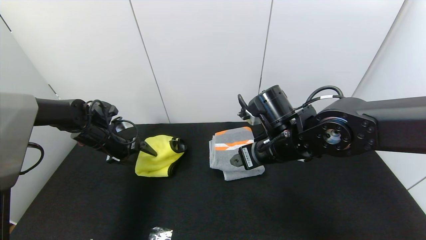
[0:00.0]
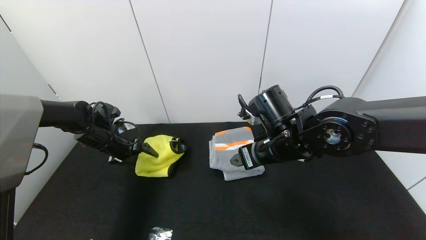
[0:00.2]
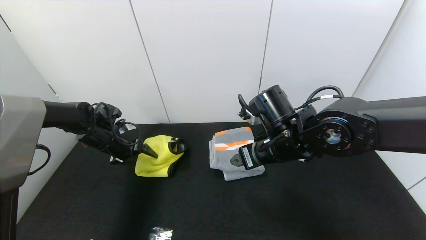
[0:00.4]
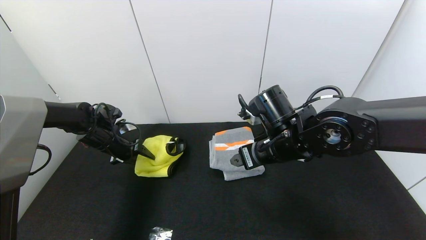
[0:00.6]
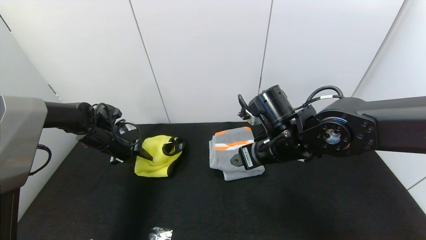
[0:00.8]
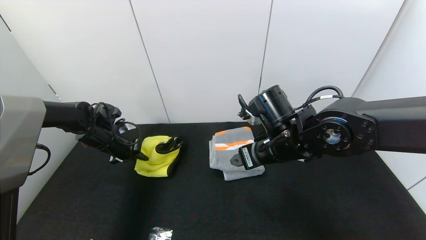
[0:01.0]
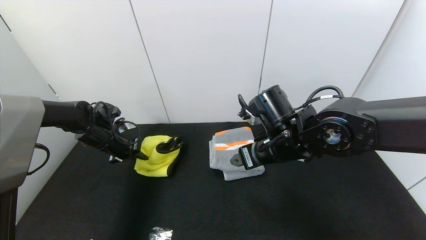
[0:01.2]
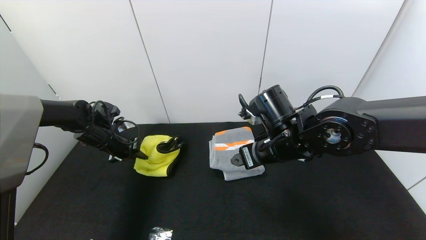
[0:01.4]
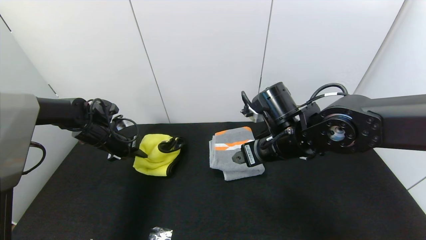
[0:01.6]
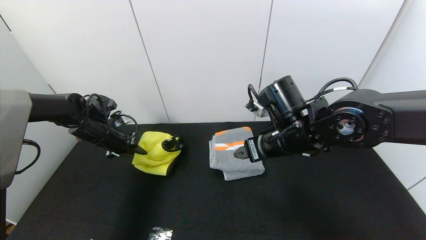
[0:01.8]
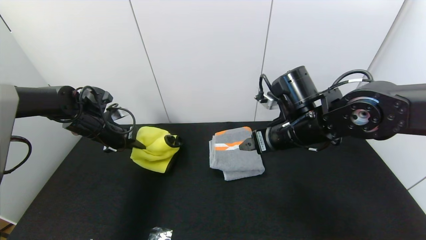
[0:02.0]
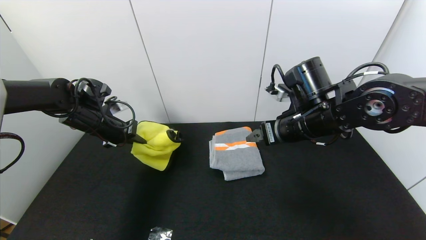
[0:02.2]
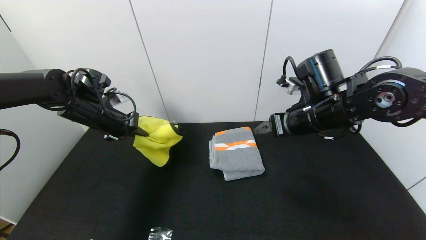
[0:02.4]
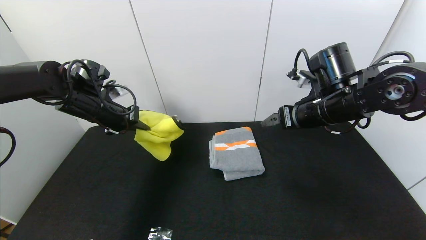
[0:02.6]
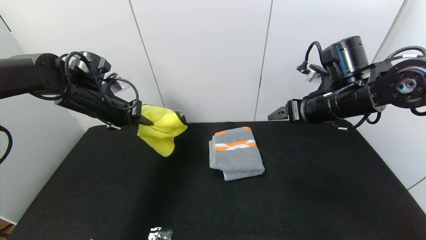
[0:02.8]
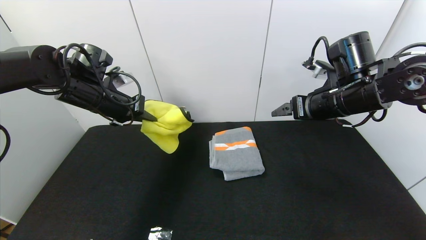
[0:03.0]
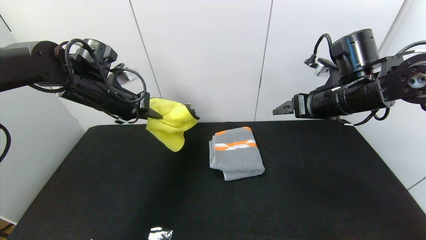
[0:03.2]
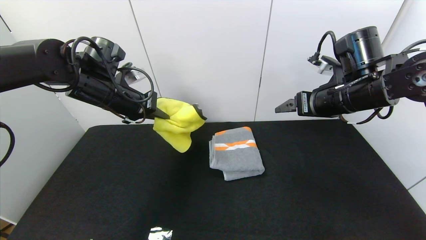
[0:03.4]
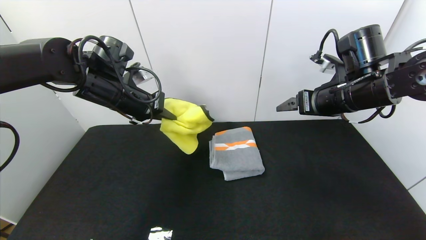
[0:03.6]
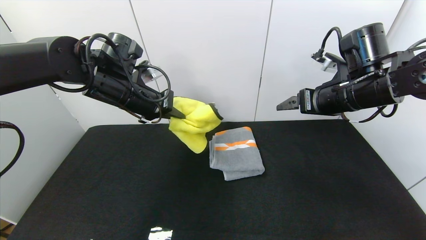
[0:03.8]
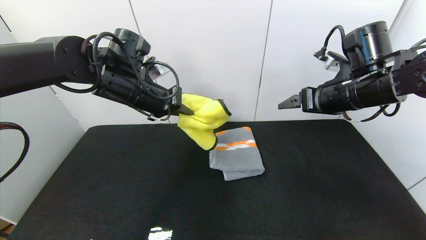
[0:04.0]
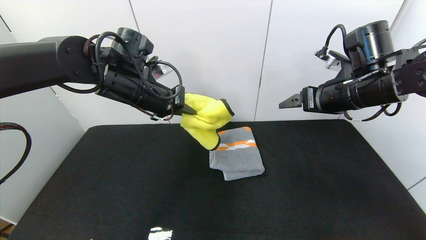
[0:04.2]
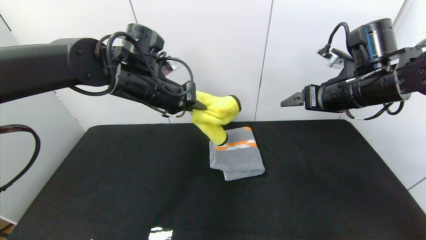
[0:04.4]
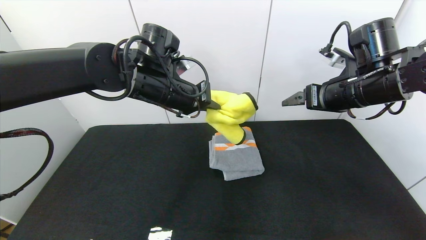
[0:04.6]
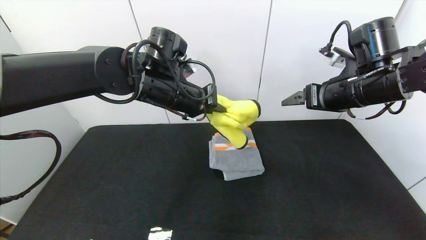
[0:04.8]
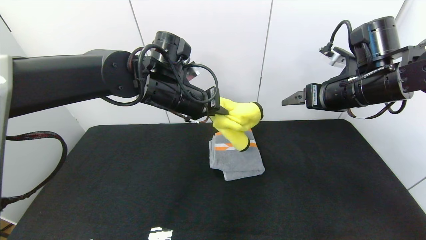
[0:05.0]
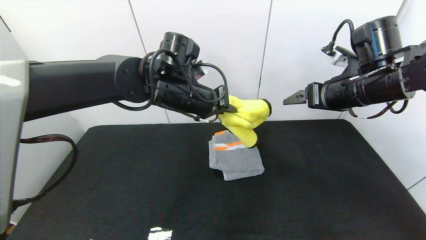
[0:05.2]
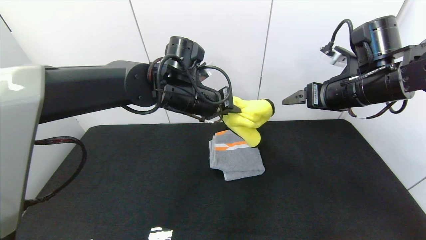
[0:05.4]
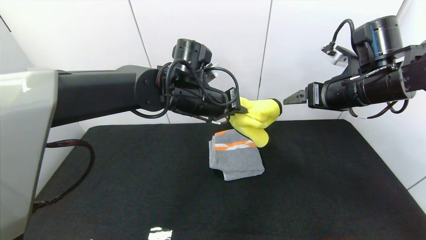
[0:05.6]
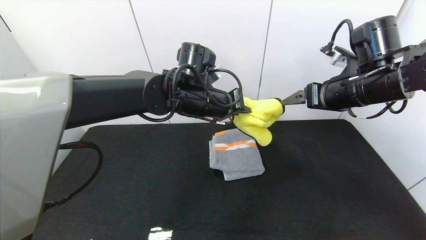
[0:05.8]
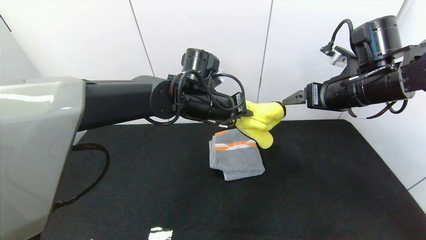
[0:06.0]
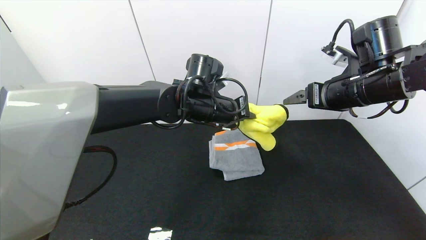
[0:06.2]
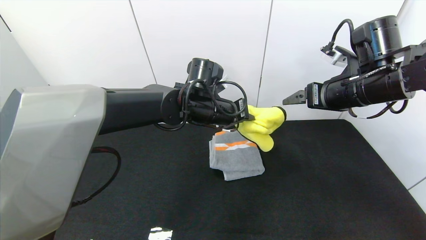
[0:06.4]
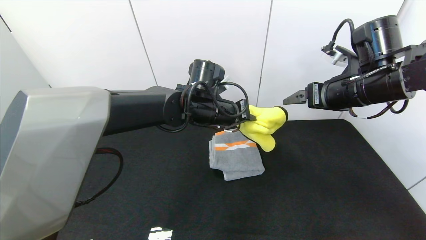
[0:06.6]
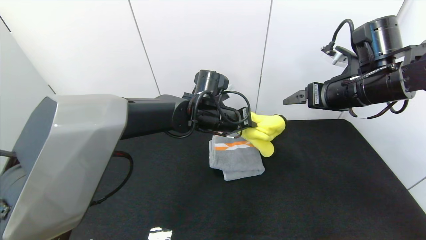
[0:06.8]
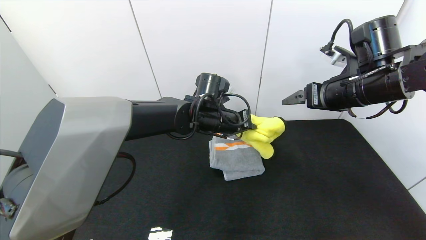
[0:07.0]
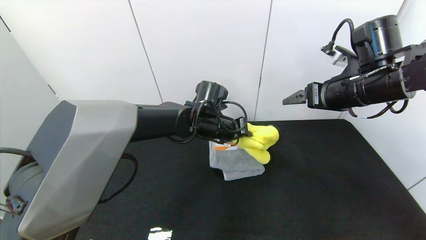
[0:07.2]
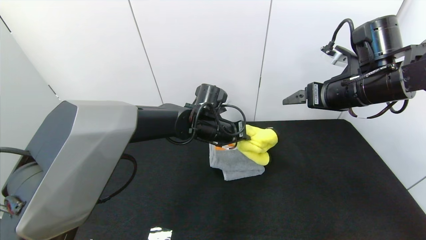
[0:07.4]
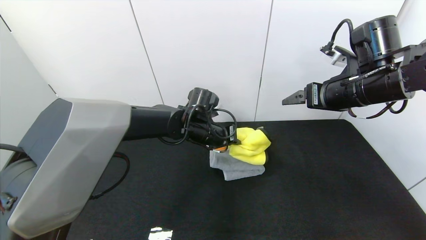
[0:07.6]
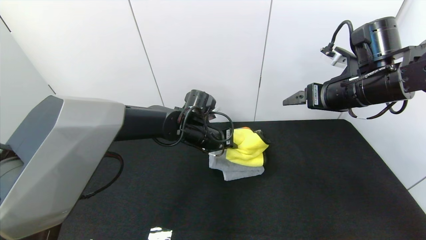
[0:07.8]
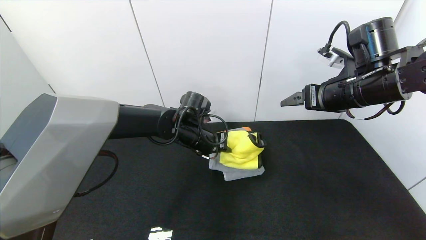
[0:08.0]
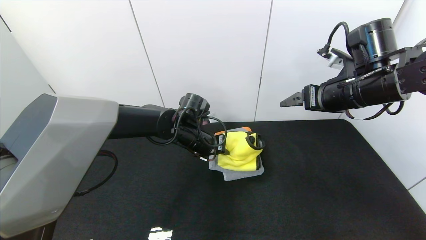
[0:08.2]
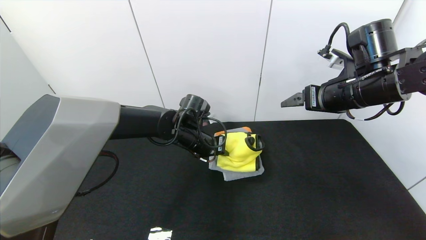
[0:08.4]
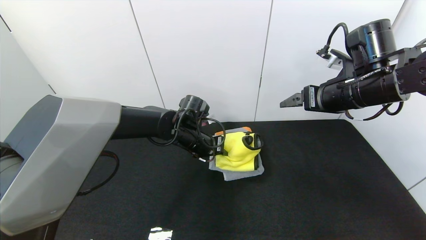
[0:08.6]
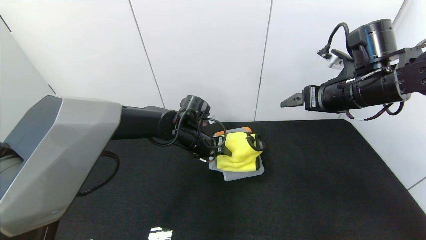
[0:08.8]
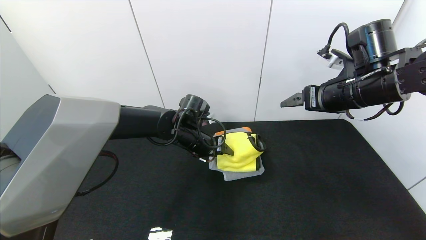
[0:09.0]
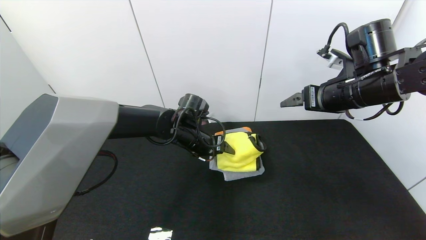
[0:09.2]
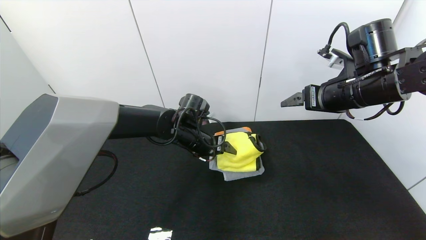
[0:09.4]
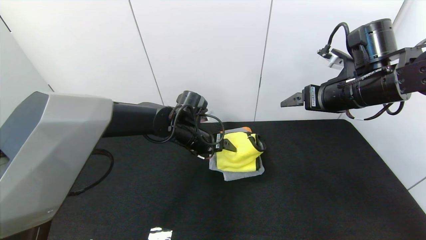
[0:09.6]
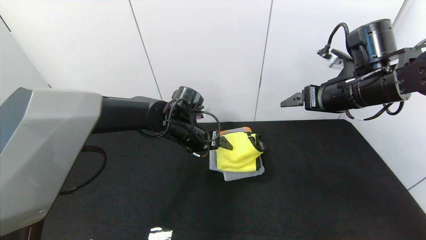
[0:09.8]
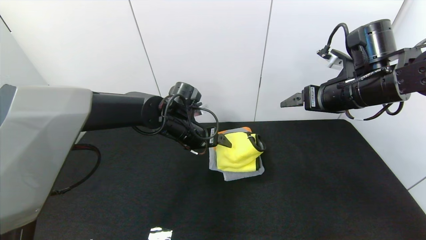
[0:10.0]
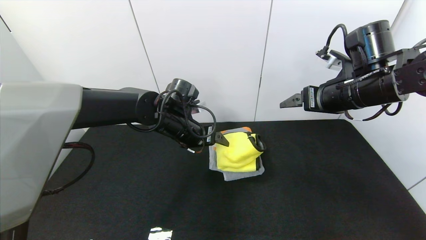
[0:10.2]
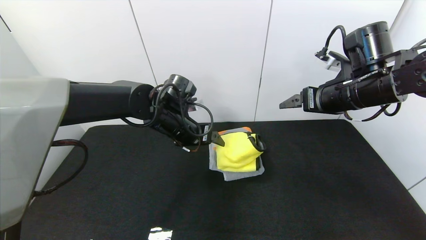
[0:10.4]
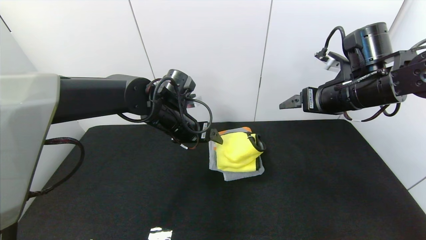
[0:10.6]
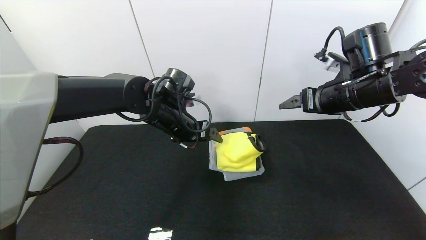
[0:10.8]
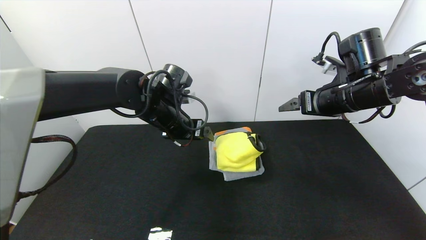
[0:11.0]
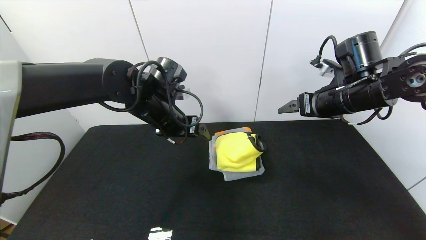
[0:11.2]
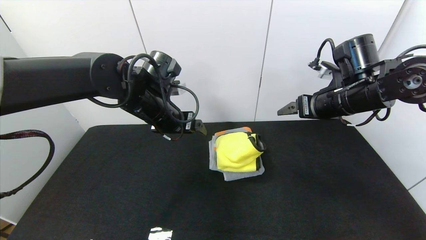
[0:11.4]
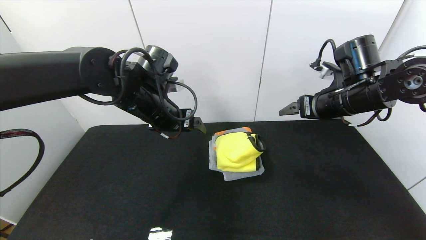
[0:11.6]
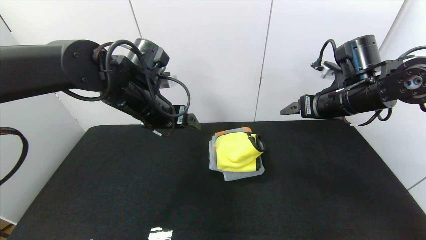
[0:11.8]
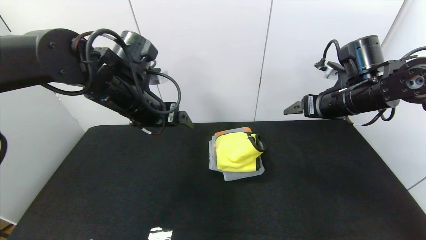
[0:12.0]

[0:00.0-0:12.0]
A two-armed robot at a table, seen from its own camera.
Task of the whole recording: Use the gripper to fold the yellow towel and grey towel in half twice,then put the yellow towel on the grey towel.
Step, 0:00.0 to 0:09.8: Place the yellow towel on the gray towel with the left gripper.
0:00.0 to 0:01.6: The left gripper closes.
0:01.6 to 0:03.0: The right gripper is displaced to the right and upward by approximately 15 cm, while the left gripper travels upward and to the right by roughly 15 cm.
0:03.0 to 0:04.4: The left gripper moves to the right, about 15 cm.
0:04.4 to 0:06.0: The left gripper shifts about 10 cm to the right.
0:06.0 to 0:07.6: The left gripper moves downward, roughly 10 cm.
0:07.6 to 0:09.0: The left gripper opens its fingers.
0:09.0 to 0:10.4: The left gripper travels upward by about 5 cm, and opens its fingers.
0:10.4 to 0:12.0: The left gripper heads upward and to the left, covering approximately 10 cm.

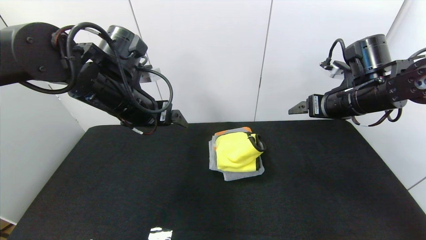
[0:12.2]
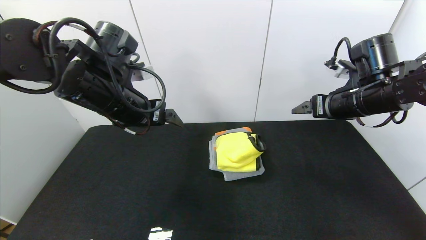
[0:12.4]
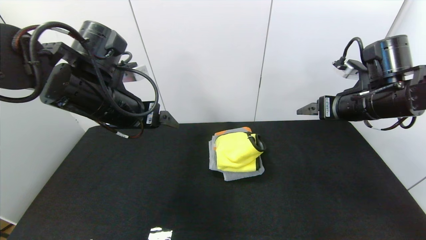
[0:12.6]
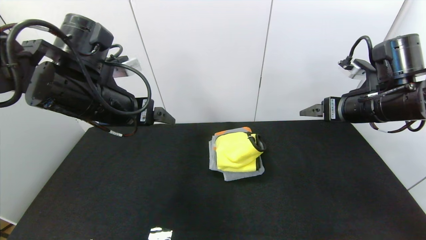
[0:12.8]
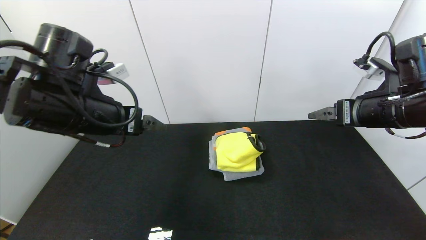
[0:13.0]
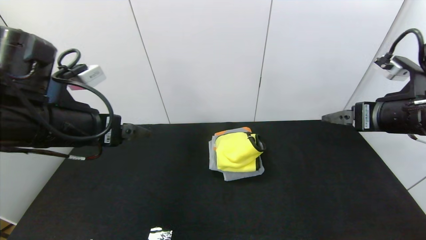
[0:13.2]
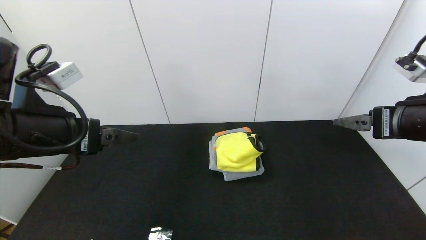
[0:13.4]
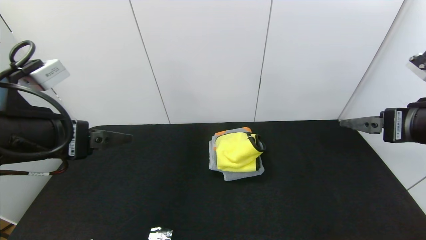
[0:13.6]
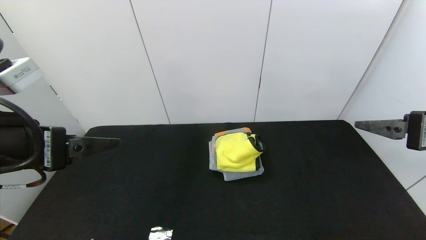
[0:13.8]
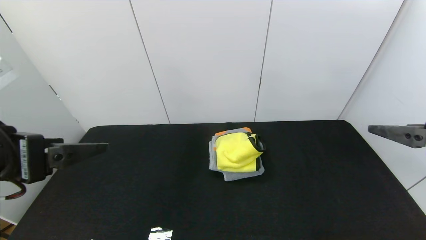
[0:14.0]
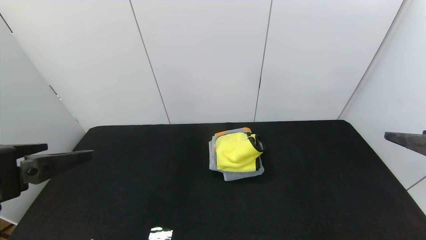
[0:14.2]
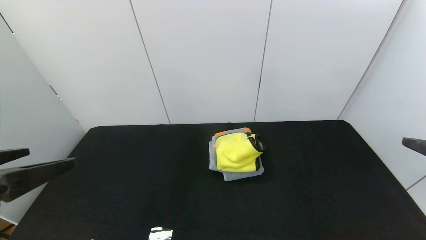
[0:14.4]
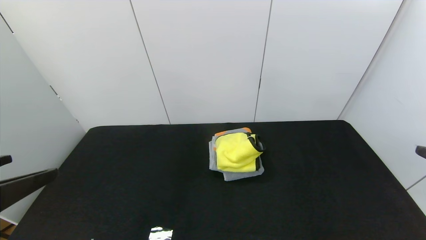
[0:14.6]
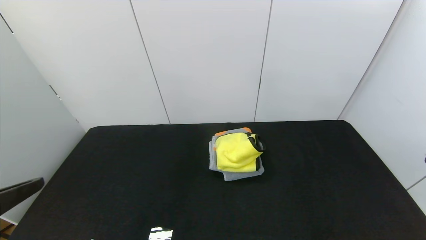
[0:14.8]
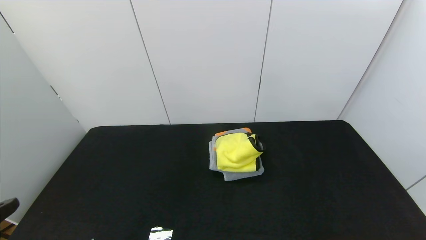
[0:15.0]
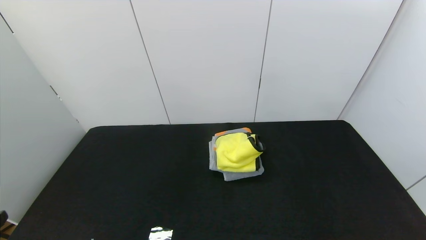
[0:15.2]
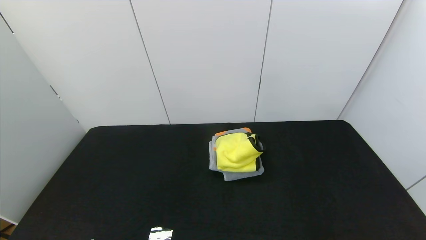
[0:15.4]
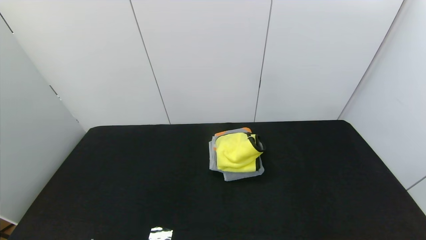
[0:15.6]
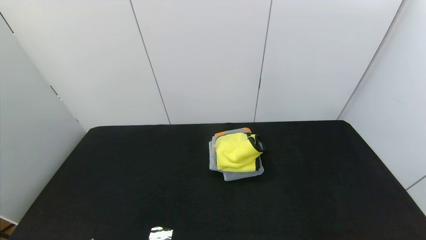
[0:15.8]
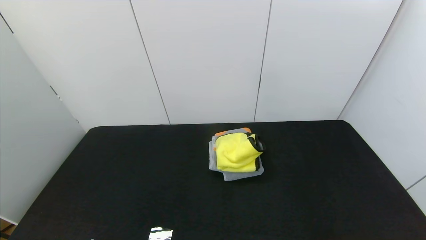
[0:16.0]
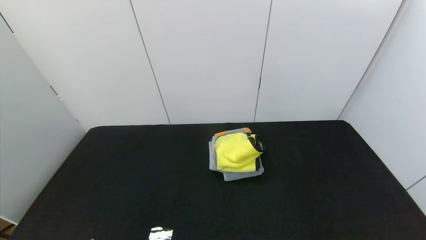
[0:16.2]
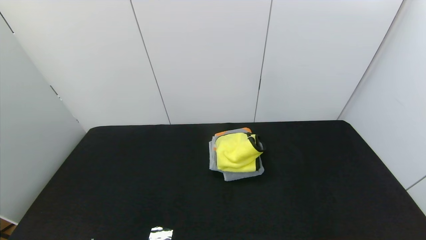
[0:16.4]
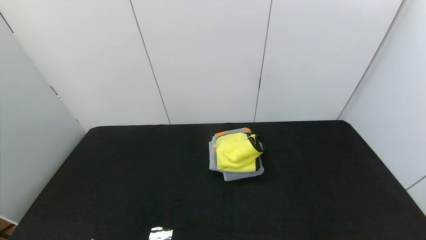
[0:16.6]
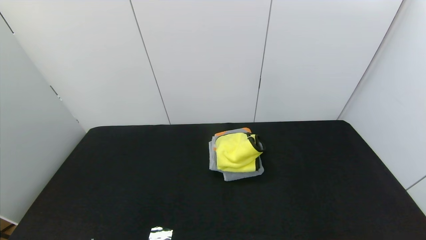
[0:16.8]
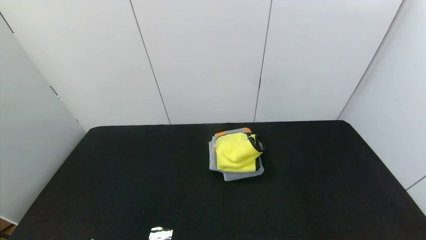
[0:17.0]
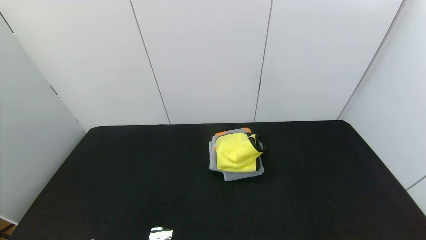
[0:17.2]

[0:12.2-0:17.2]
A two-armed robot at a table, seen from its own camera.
Task of the whole recording: Use the gripper to fold the yellow towel and grey towel in half twice,then put the yellow towel on the grey towel.
0:12.2 to 0:13.8: The left gripper goes approximately 20 cm backward and to the left, while the right gripper travels backward by roughly 15 cm.
0:13.8 to 0:15.6: Both grippers travel together backward, about 15 cm.
